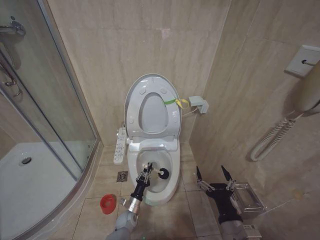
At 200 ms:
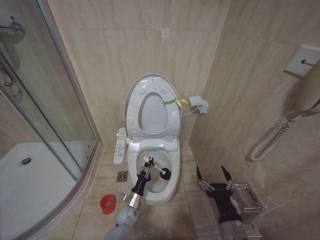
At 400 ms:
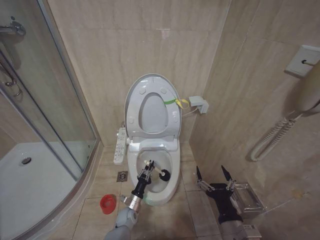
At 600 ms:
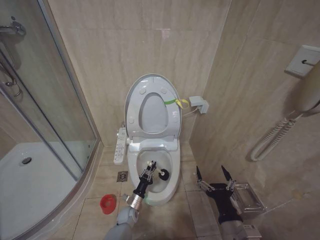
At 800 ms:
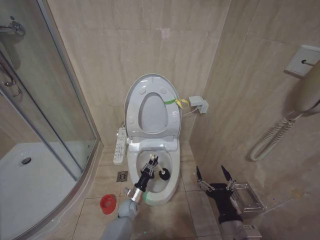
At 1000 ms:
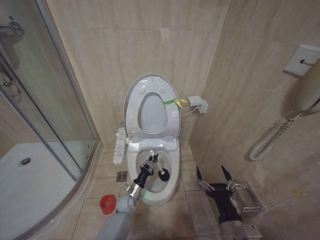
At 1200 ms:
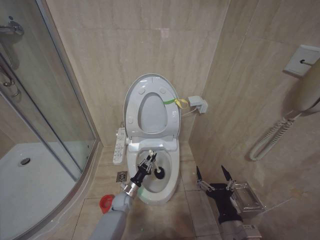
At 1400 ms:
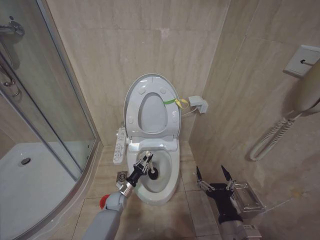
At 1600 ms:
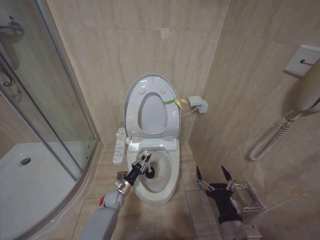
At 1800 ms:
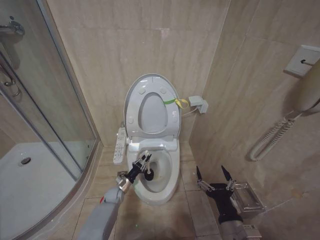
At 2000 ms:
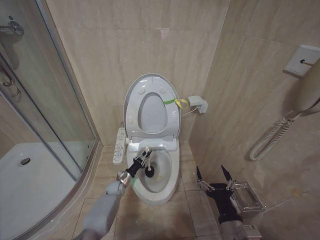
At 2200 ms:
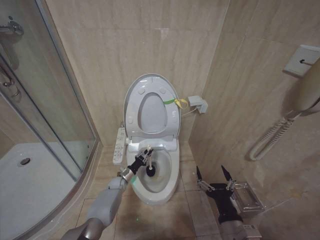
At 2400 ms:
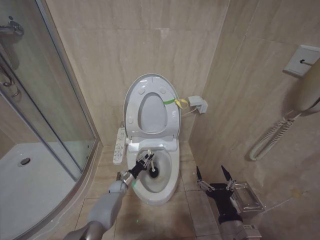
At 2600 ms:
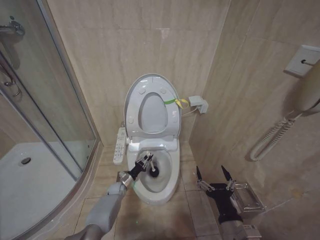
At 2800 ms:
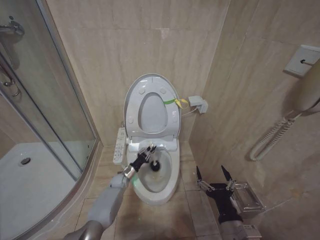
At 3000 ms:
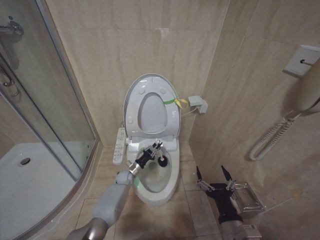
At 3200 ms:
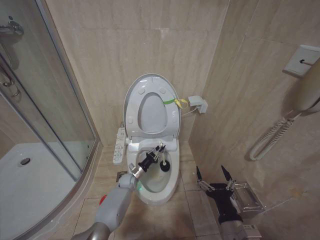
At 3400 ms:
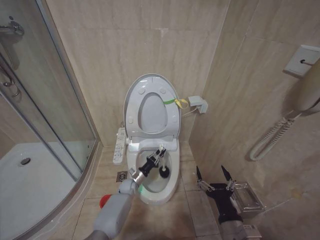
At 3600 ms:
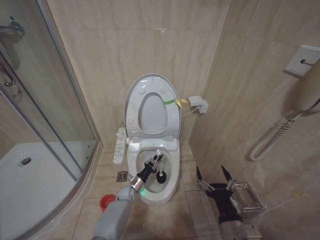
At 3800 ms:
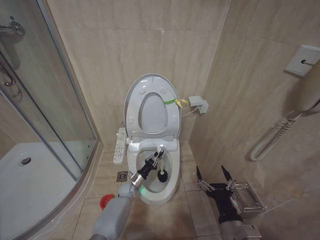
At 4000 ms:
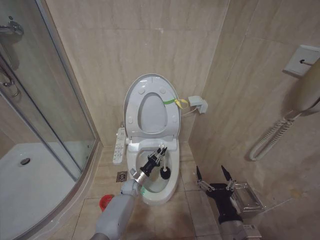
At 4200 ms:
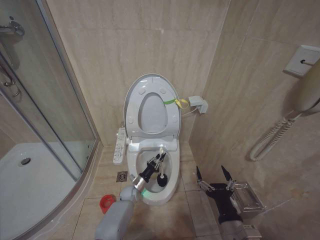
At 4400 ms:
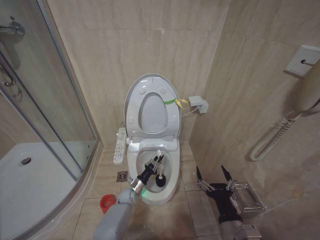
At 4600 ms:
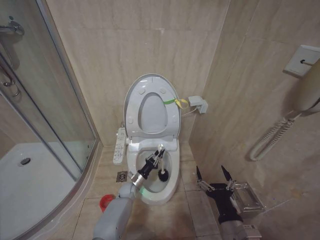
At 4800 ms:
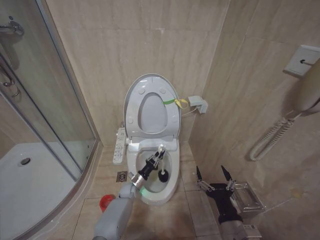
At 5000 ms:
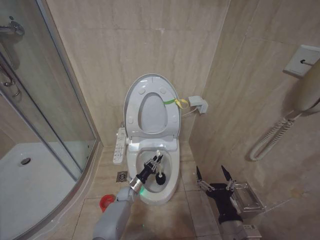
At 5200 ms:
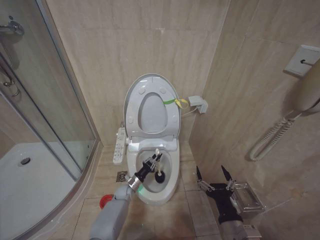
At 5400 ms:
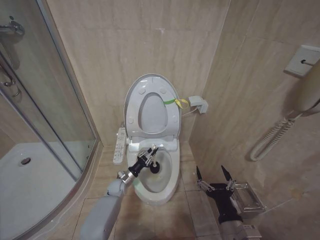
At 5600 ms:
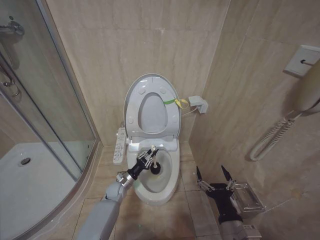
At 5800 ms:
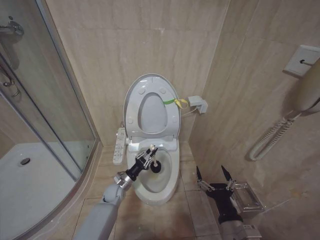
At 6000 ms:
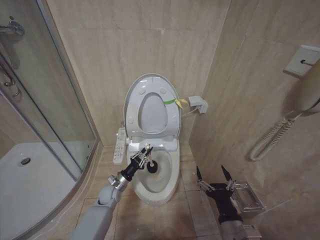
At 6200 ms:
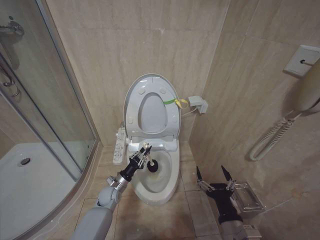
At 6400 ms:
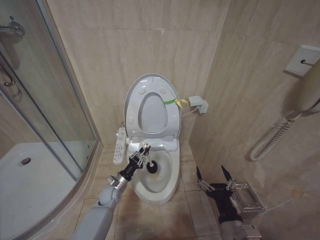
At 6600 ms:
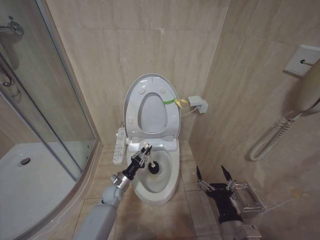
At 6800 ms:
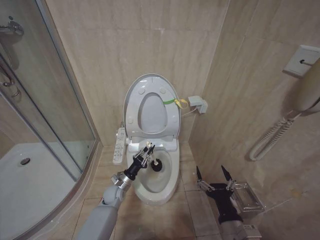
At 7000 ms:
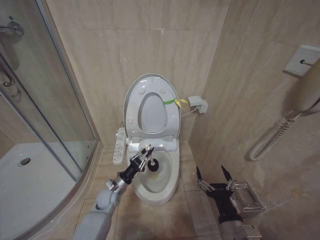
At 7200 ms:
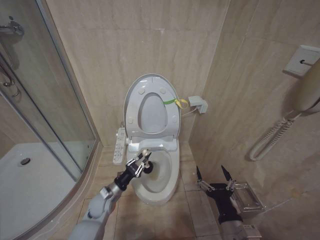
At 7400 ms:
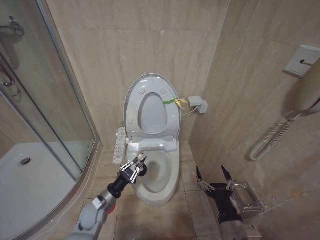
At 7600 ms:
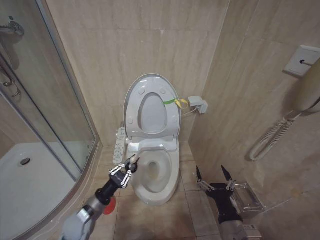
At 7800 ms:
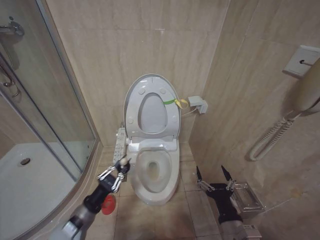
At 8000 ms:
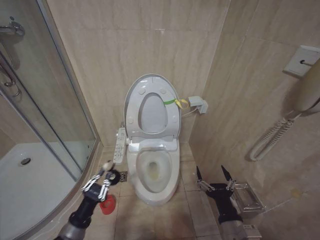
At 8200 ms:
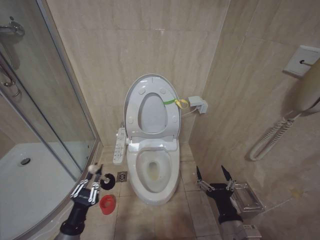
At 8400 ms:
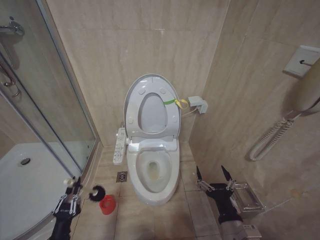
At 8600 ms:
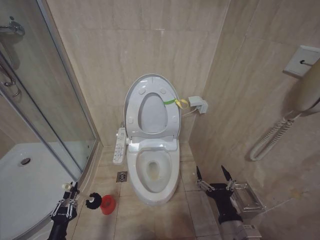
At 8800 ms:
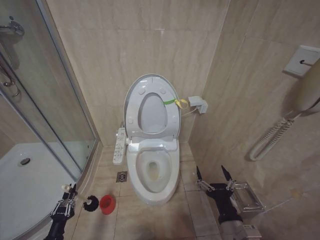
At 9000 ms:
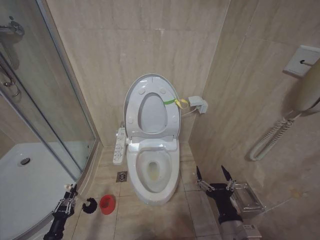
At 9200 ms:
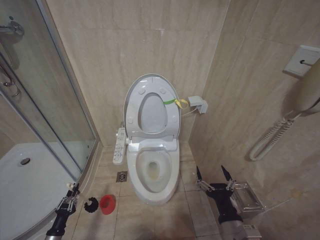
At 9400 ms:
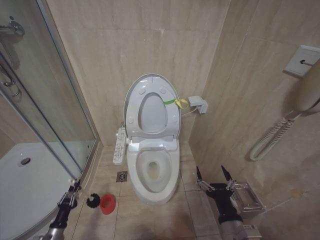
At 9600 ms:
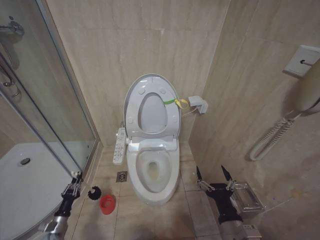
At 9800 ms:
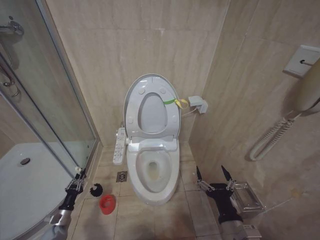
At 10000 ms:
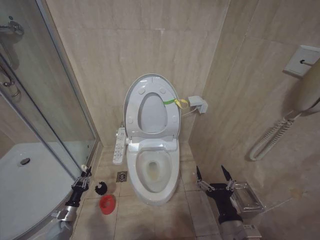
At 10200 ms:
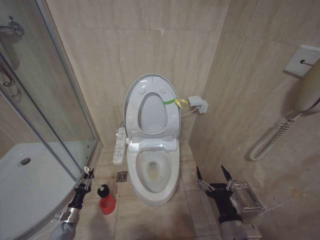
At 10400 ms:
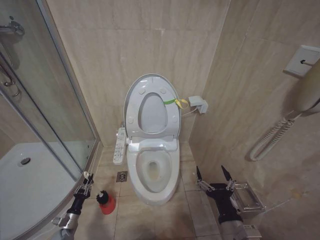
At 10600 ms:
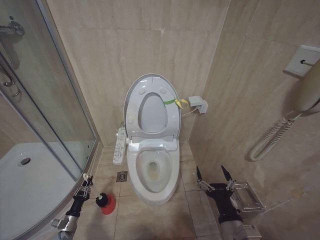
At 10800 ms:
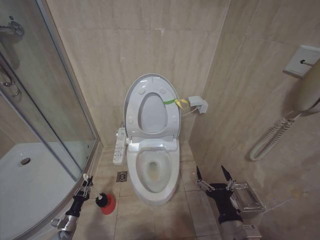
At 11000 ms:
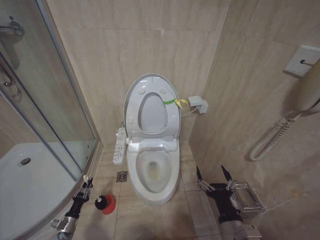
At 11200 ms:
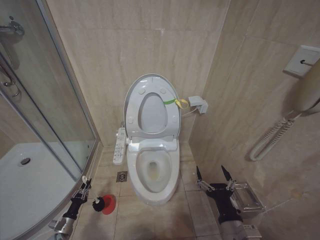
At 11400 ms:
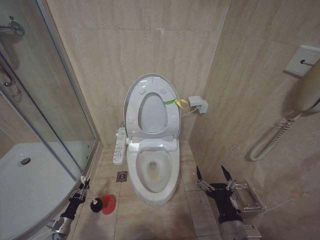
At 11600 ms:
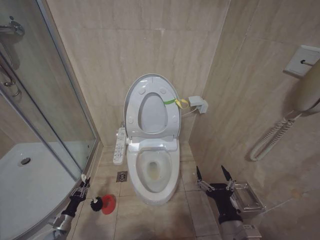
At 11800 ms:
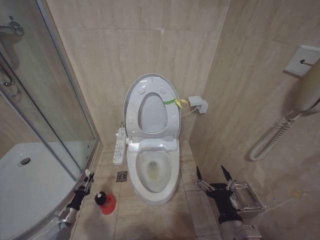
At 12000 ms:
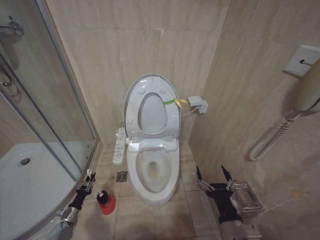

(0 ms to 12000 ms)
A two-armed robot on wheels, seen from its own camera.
Task of the whole recording: Open the toilet lid, clean the toilet bowl with a toilet brush, close the toilet lid, and flush.
0 ms - 1600 ms: The left gripper shifts about 10 cm forward, upward and to the left.
1600 ms - 3000 ms: The left gripper heads forward, covering about 10 cm.
3000 ms - 4400 ms: The left gripper is displaced backward and downward by about 10 cm.
4400 ms - 6000 ms: The left gripper shifts some 10 cm upward and to the left.
6000 ms - 7600 ms: The left gripper heads backward, upward and to the left, covering approximately 15 cm.
7600 ms - 9000 ms: The left gripper moves to the left, downward and backward, some 25 cm.
9000 ms - 10400 ms: The left gripper shifts some 15 cm forward and downward.

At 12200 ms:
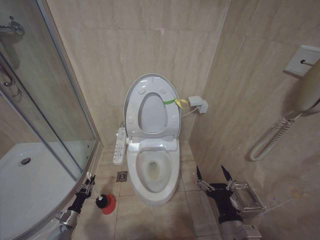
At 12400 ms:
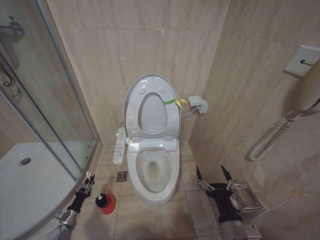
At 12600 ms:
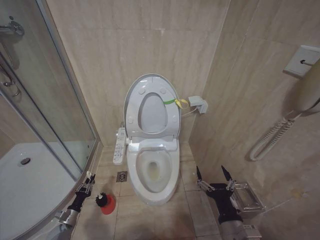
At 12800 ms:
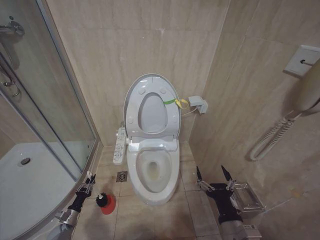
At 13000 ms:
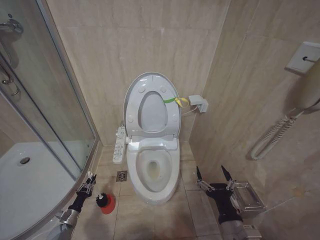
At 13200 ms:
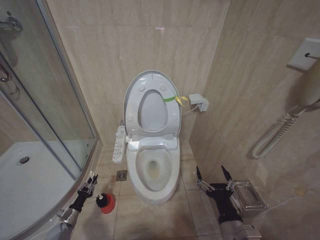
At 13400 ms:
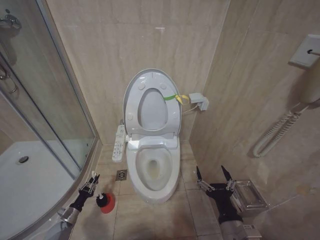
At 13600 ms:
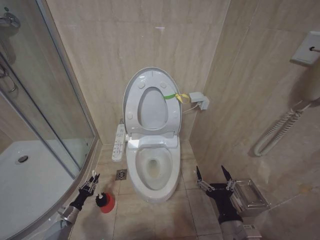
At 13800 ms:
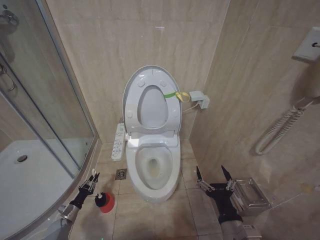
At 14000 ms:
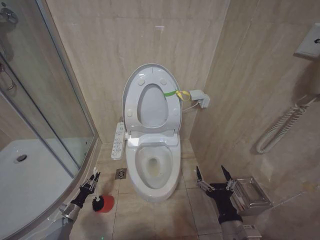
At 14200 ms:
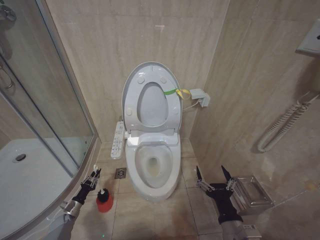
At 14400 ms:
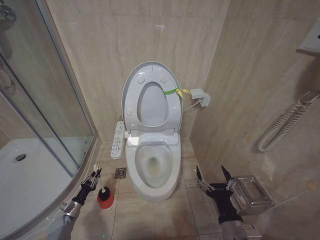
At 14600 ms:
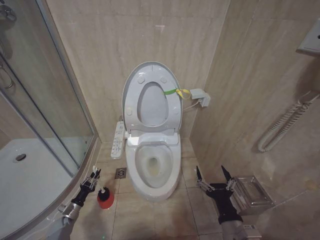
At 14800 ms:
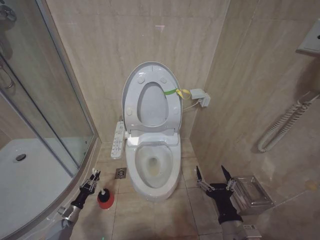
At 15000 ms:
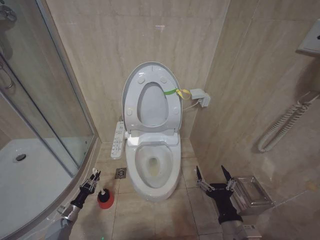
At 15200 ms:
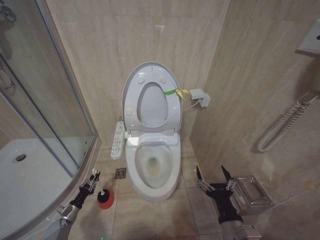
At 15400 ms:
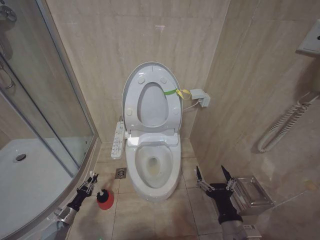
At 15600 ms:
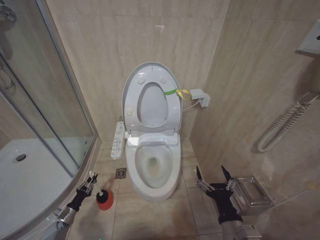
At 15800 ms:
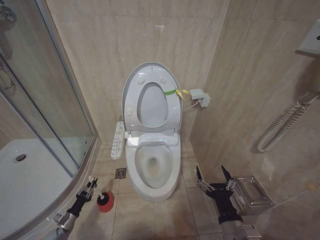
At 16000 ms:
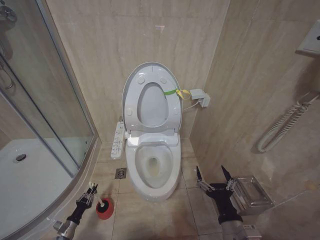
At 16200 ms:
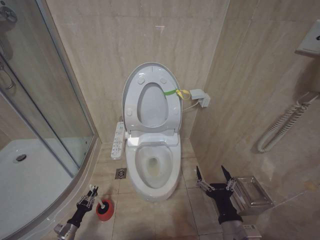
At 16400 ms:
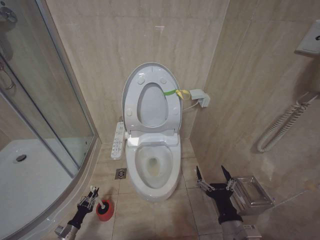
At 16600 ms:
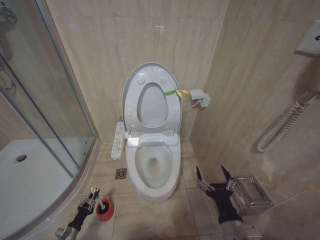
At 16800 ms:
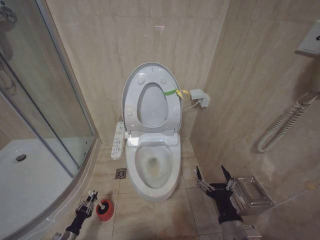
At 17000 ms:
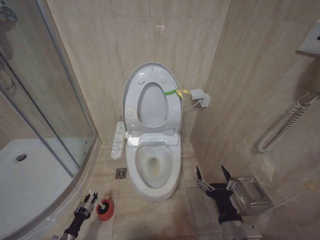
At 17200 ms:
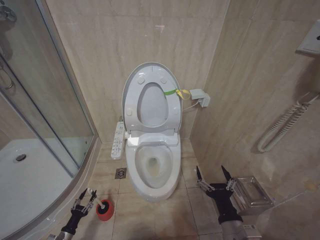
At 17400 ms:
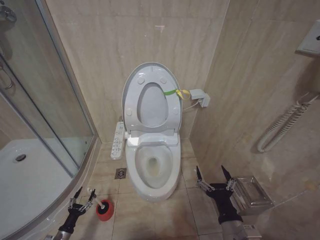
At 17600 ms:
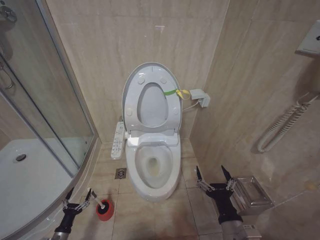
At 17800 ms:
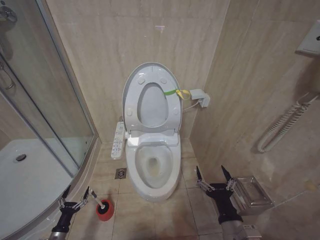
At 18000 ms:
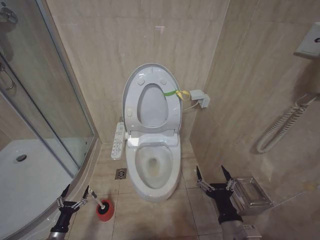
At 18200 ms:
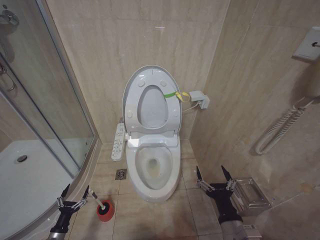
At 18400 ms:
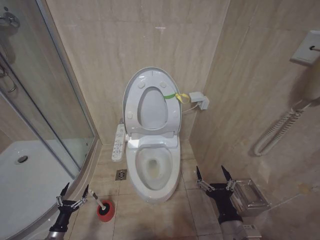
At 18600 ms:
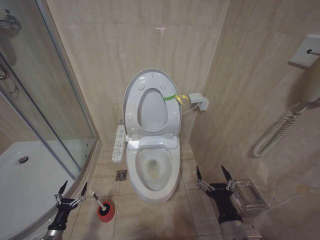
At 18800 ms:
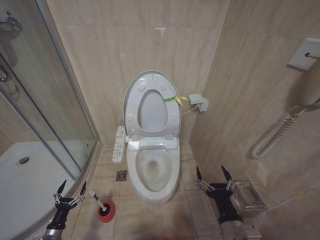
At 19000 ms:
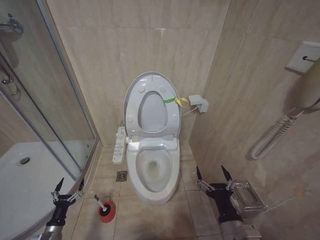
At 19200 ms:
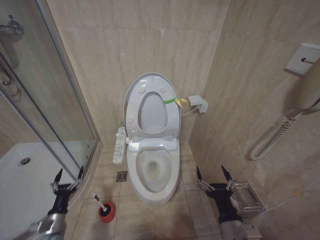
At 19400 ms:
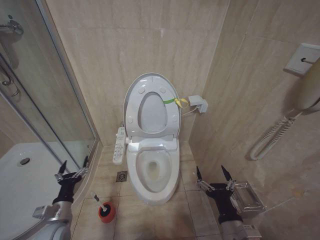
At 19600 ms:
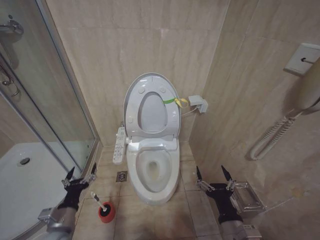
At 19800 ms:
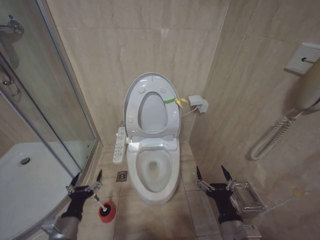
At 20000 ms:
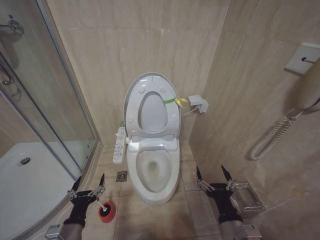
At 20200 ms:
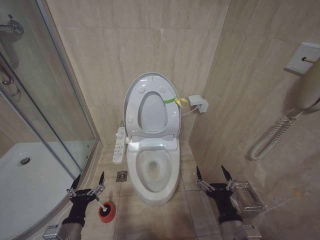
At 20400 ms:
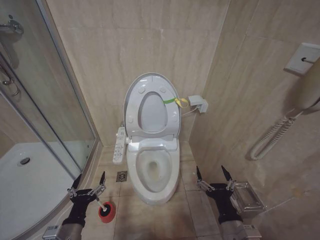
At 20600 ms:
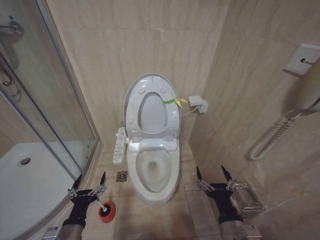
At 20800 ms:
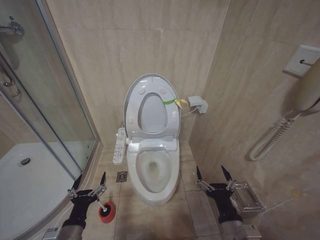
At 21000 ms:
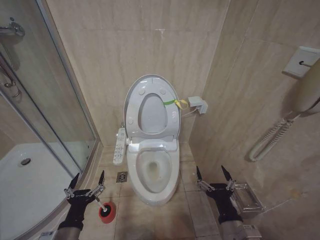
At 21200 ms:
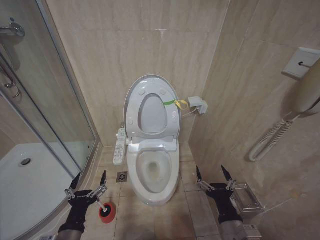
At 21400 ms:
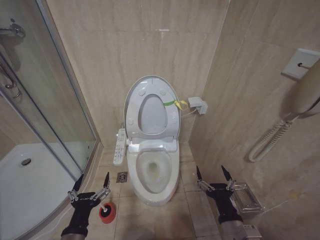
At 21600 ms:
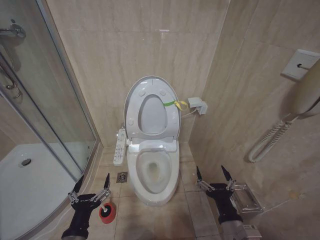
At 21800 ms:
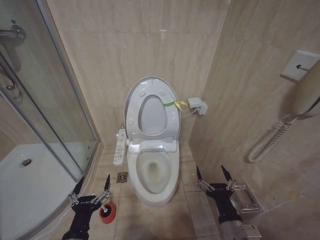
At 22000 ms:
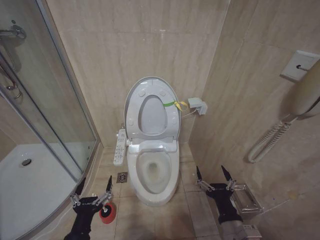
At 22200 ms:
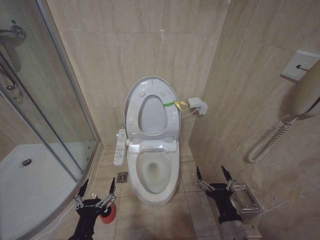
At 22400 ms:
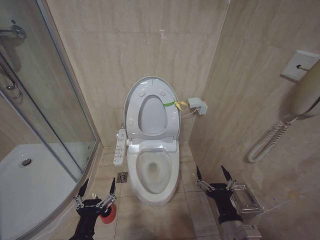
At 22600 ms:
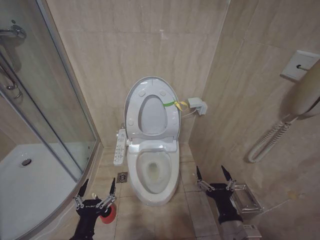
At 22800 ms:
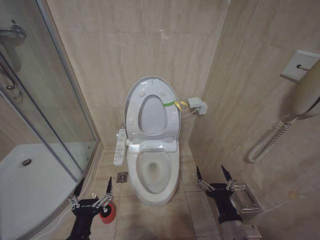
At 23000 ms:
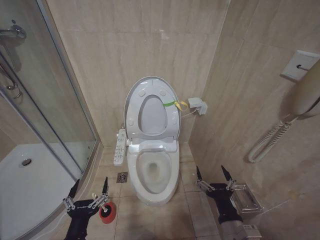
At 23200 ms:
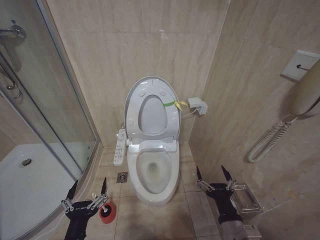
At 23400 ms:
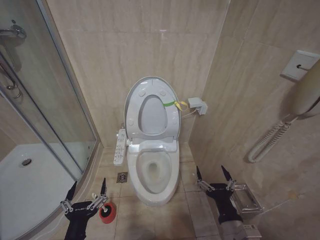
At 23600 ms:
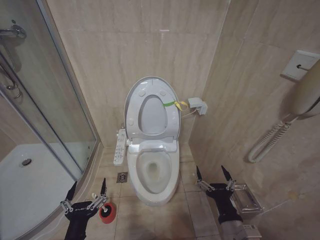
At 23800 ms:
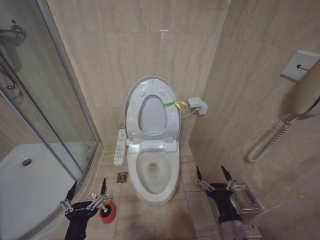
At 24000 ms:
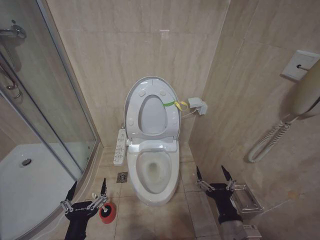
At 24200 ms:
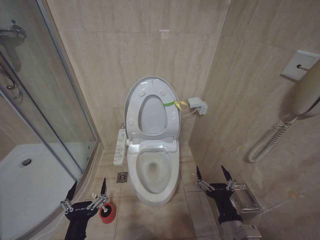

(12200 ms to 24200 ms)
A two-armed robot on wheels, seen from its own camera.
Task of the whole recording: Open the toilet lid, clean the toilet bowl with a toilet brush, close the toilet lid, and flush.
12200 ms - 15200 ms: The grippers make only small movements.
15200 ms - 16600 ms: The left gripper goes about 10 cm backward.
16600 ms - 18200 ms: The left gripper heads upward, covering roughly 10 cm, and opens up.
18200 ms - 19800 ms: The left gripper heads upward and to the right, covering approximately 25 cm.
19800 ms - 21200 ms: The left gripper shifts about 5 cm backward.
21200 ms - 24200 ms: The grippers stay close to where they were, moving slightly.
